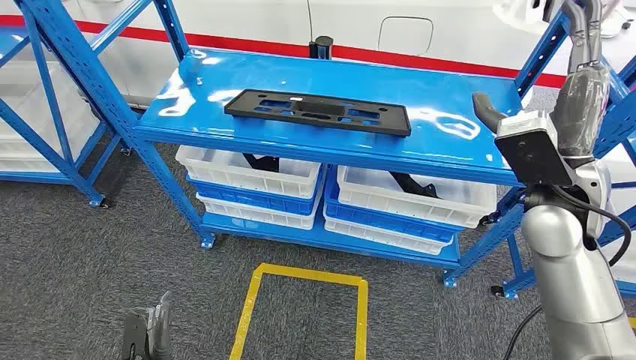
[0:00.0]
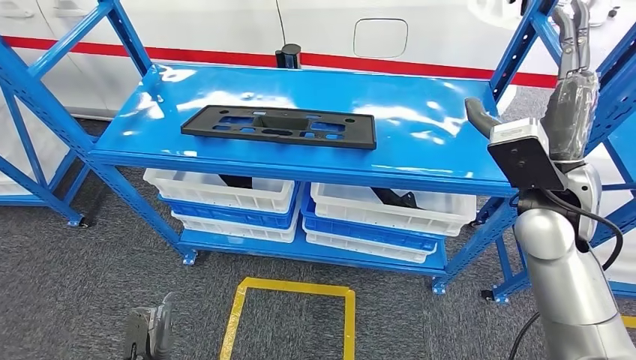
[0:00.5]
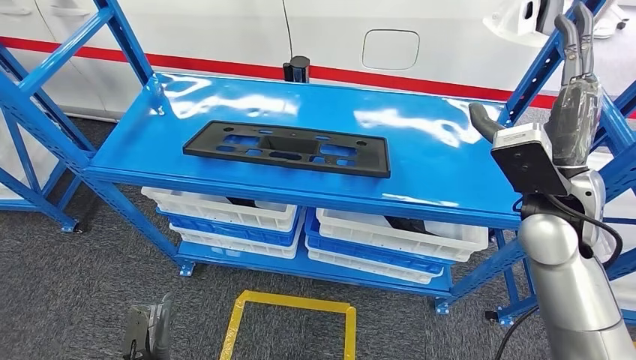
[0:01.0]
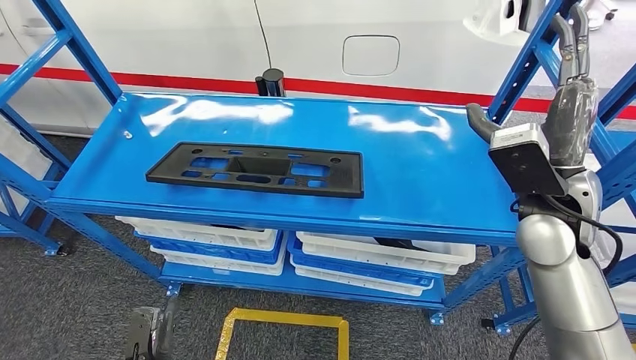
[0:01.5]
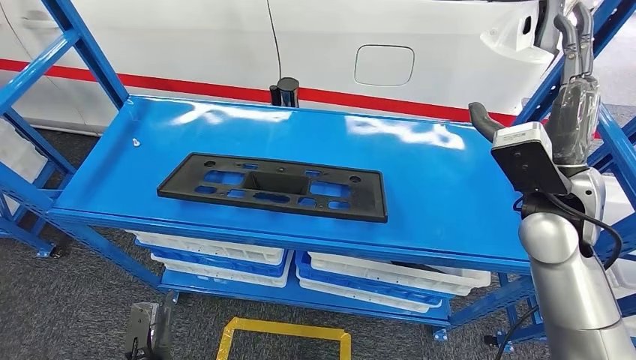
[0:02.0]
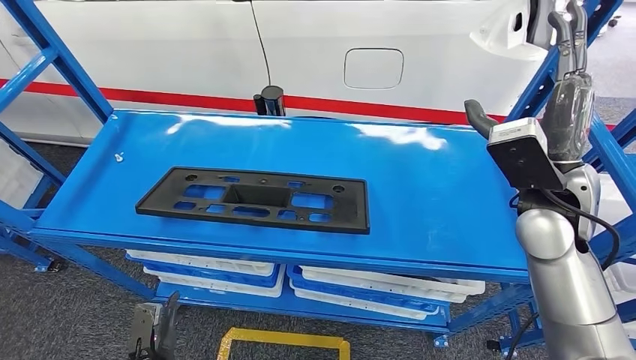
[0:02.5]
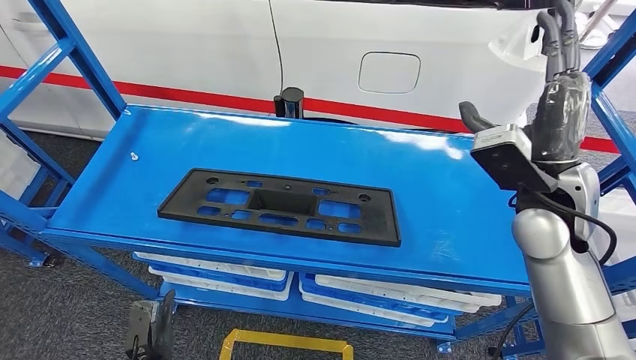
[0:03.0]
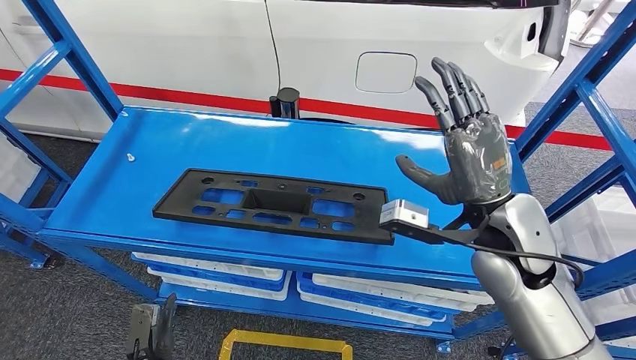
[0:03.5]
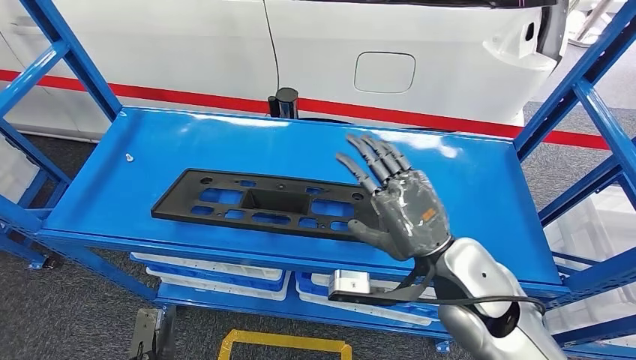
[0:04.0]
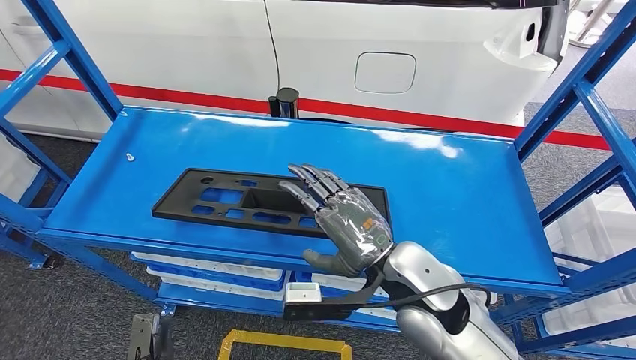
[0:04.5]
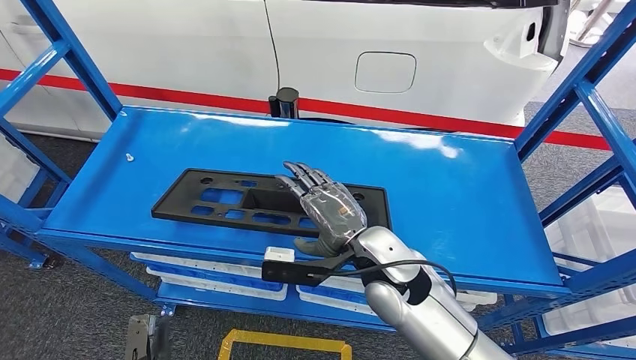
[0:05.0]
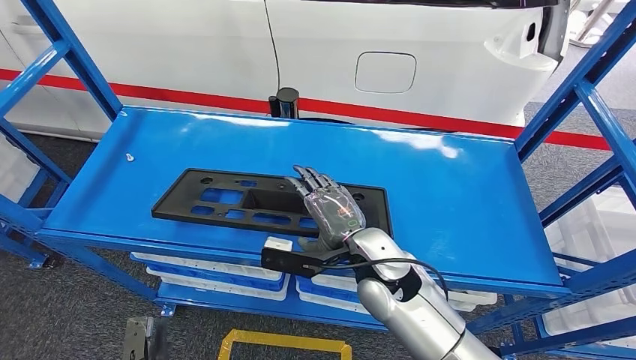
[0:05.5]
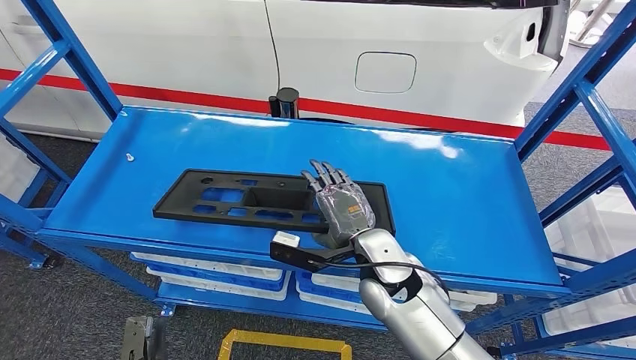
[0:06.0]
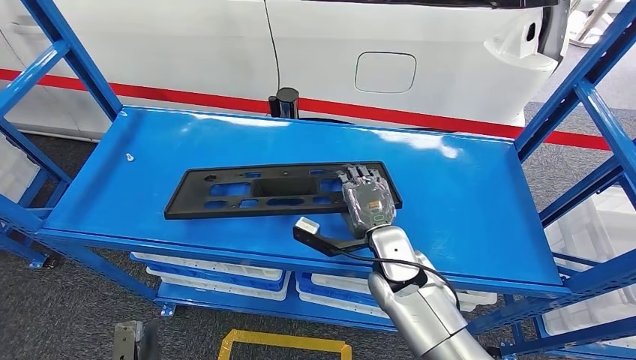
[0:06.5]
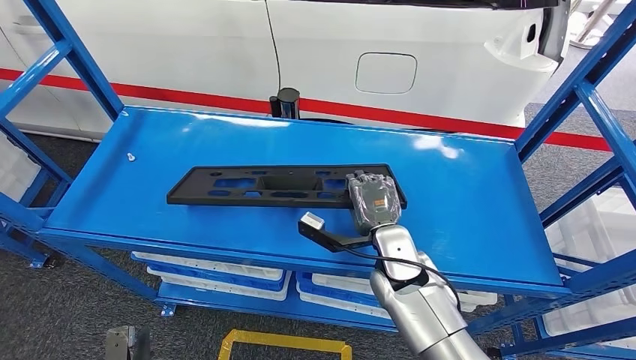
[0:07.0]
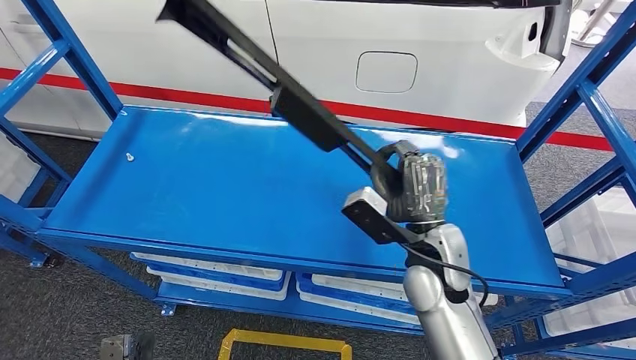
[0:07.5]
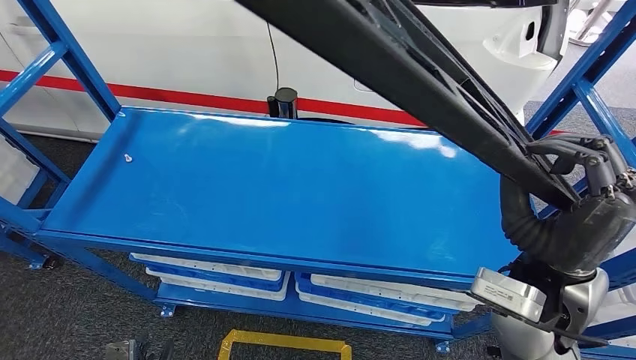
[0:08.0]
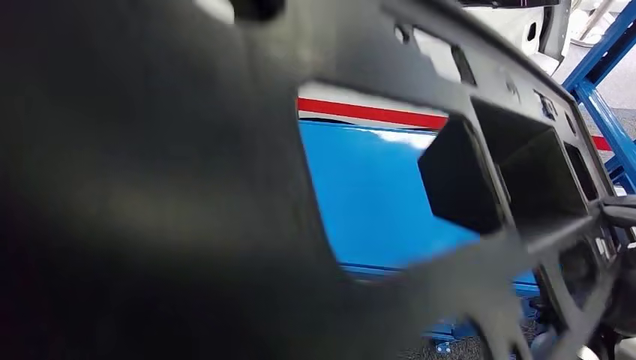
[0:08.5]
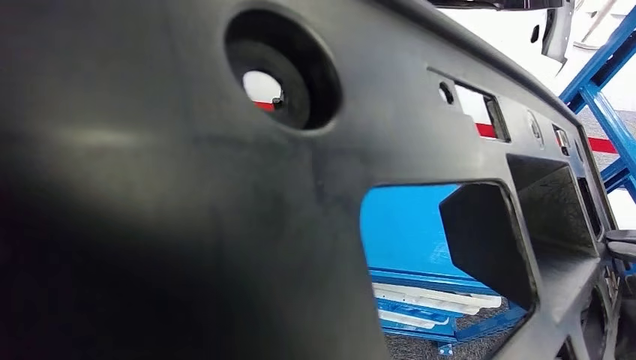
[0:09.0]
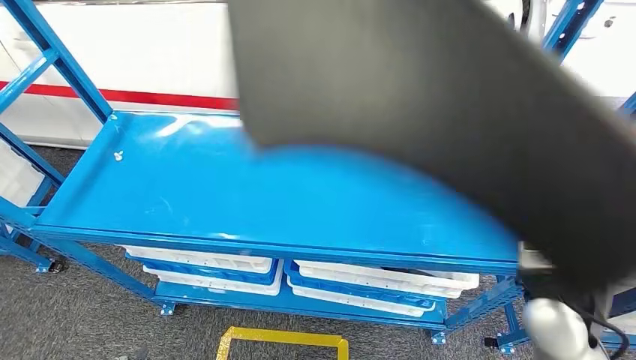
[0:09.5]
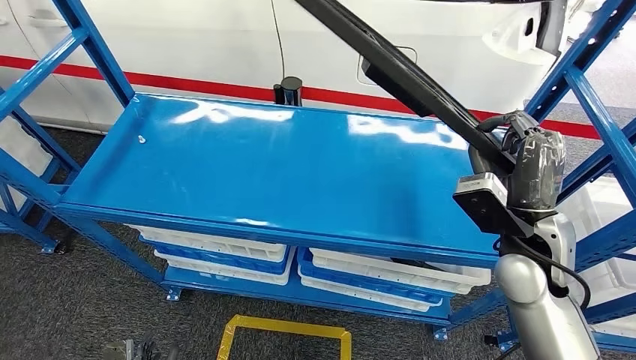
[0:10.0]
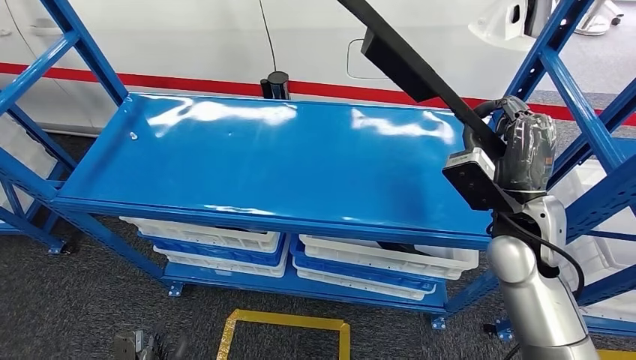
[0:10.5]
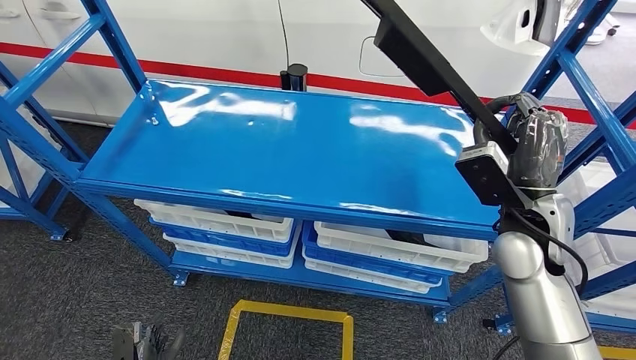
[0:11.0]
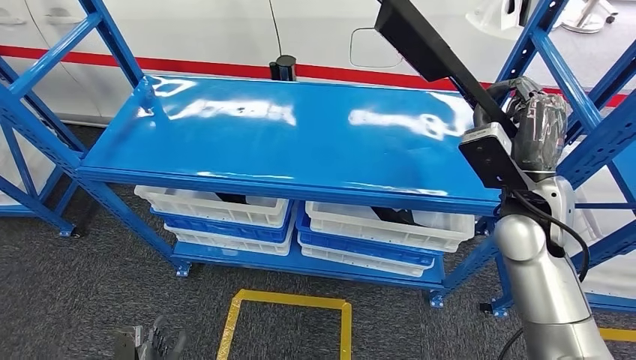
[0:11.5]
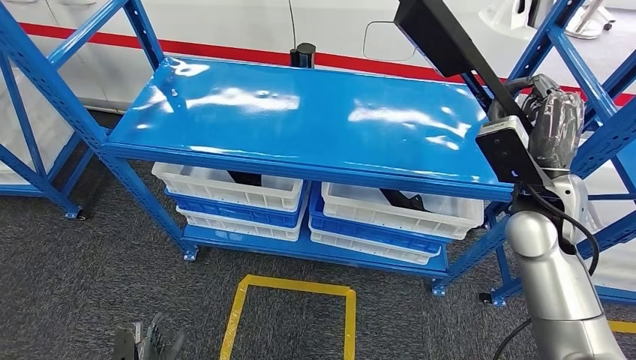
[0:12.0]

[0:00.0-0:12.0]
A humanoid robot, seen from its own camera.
0:04.0 to 0:06.0: The right hand moves to the left, downward and forward, about 15 cm.

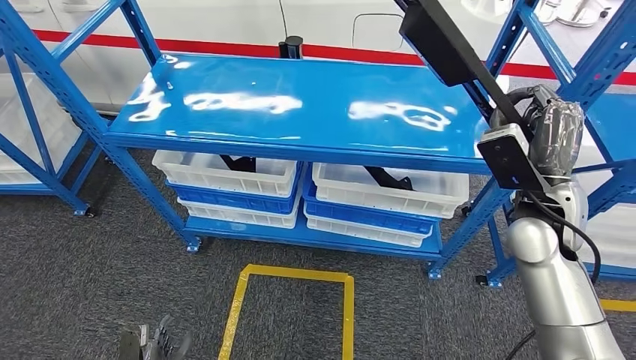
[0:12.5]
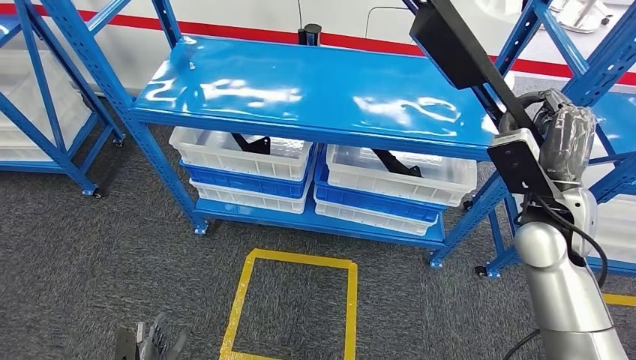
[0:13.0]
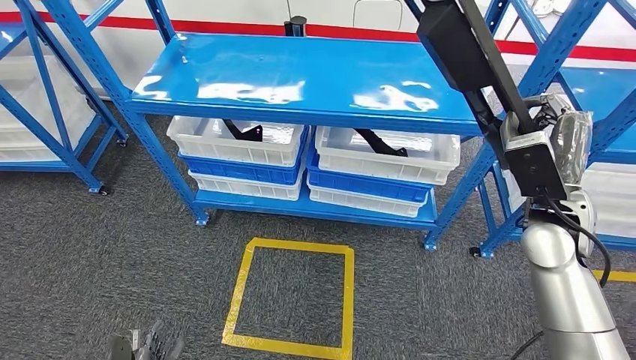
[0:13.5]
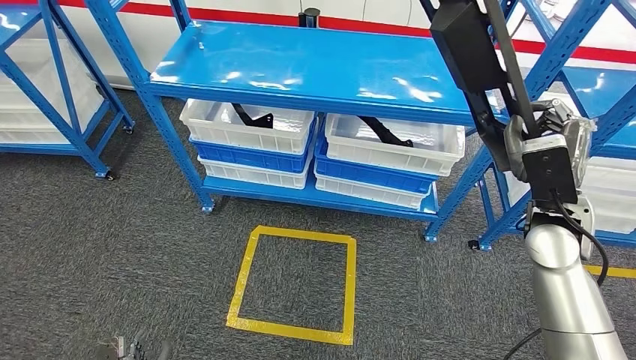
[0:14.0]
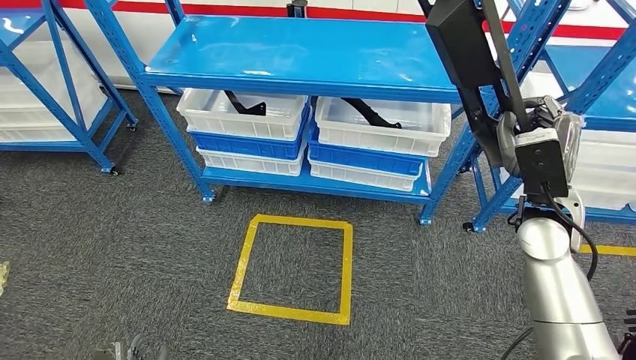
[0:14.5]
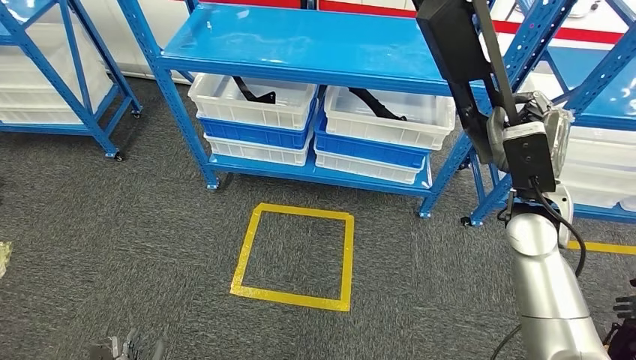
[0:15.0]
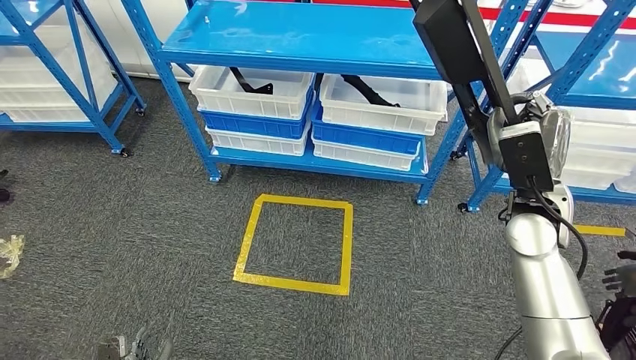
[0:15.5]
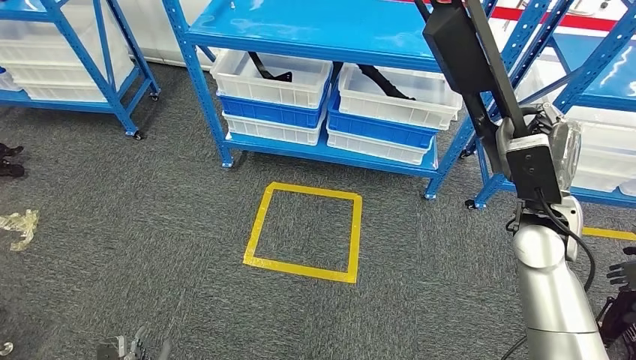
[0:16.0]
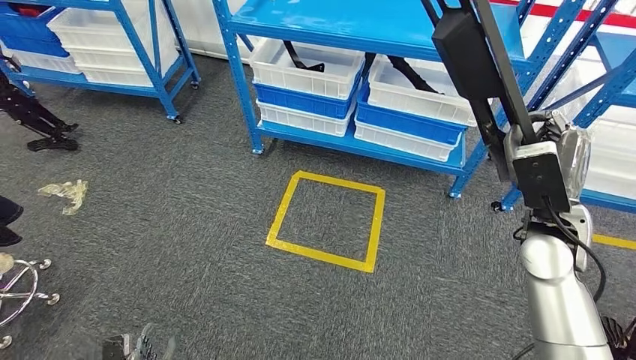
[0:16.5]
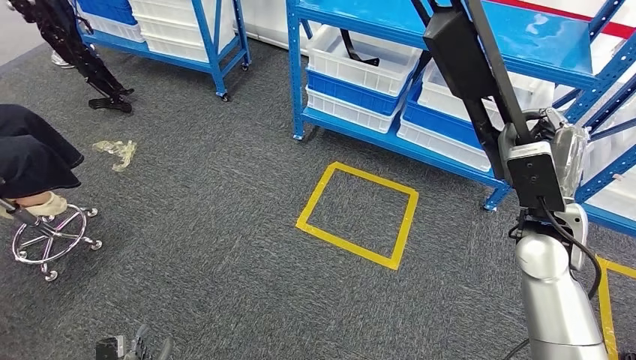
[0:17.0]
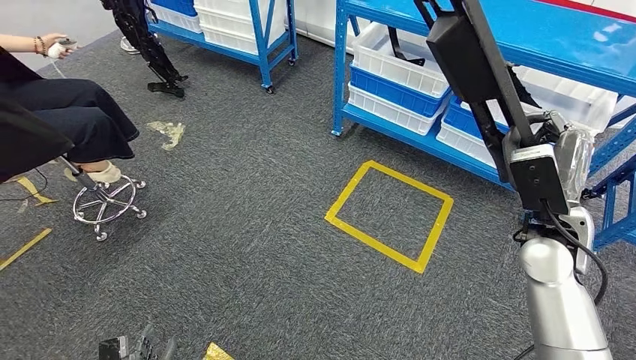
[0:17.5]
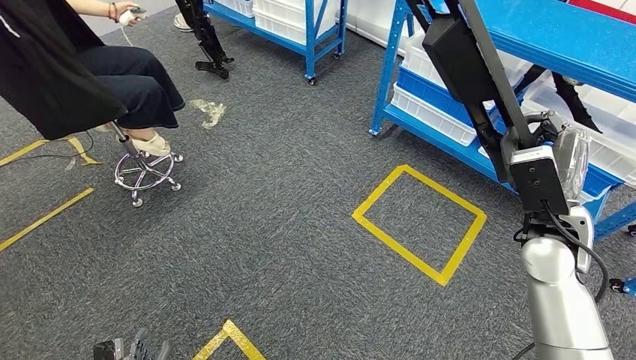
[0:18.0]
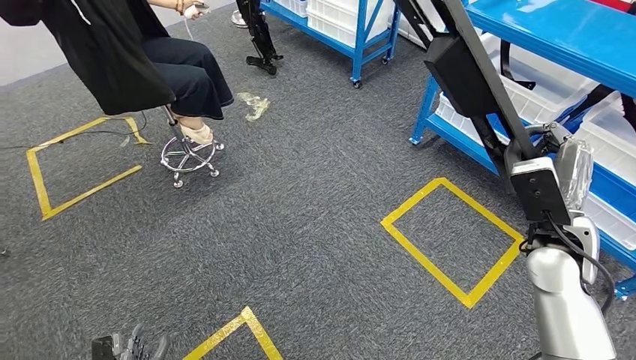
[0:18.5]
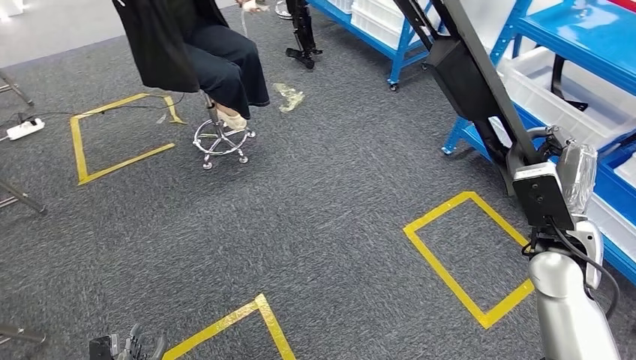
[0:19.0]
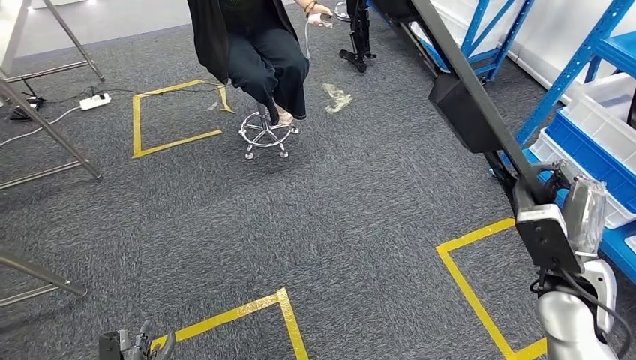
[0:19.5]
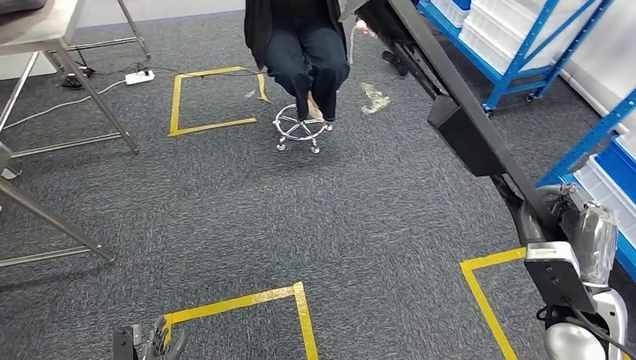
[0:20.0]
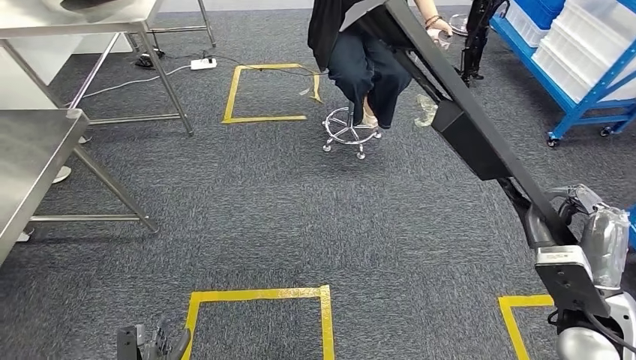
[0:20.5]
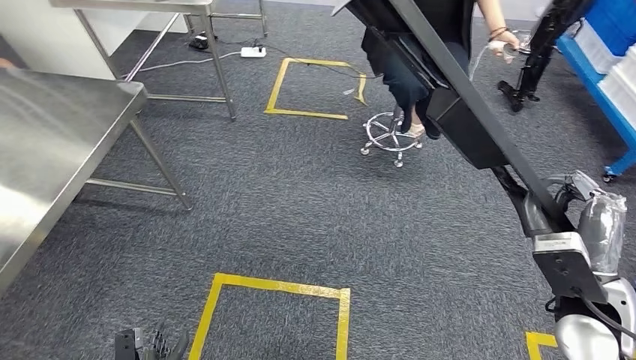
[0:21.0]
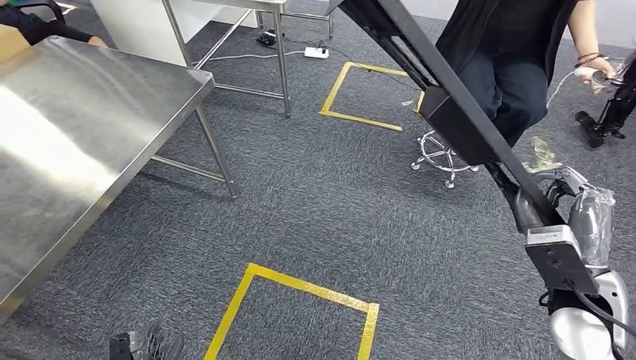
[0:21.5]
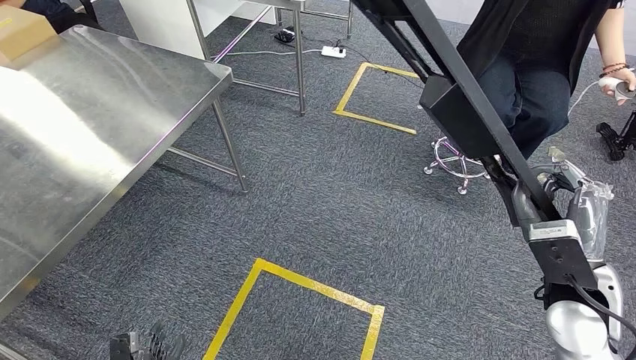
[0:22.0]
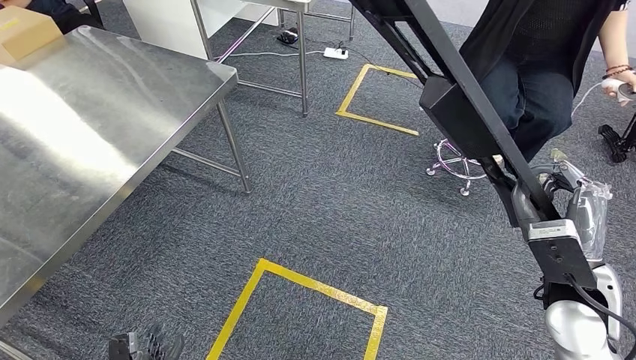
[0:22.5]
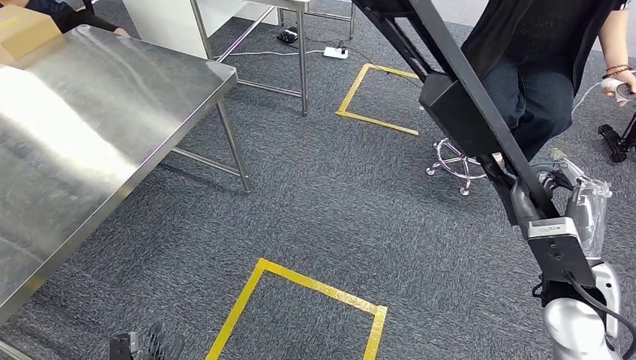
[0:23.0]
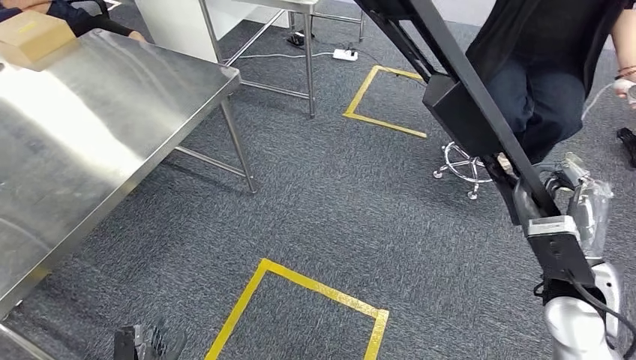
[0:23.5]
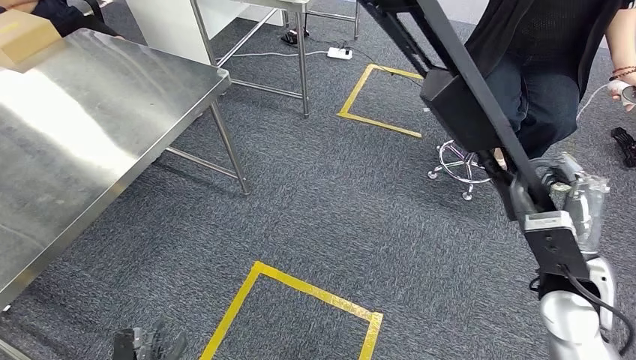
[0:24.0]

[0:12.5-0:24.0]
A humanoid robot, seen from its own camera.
Step, 0:12.5 to 0:15.0: Pick up the large material from the shelf.
0:22.0 to 0:24.0: The two hands keep their place.
